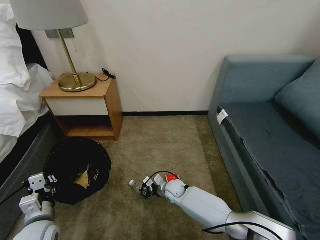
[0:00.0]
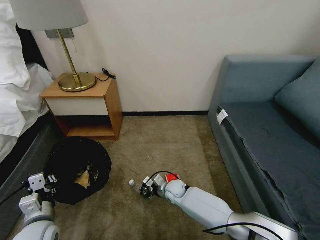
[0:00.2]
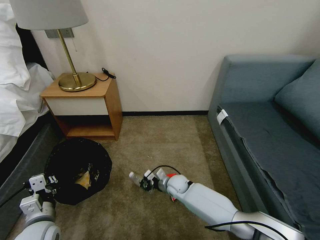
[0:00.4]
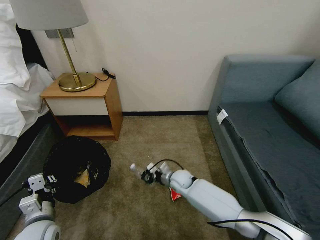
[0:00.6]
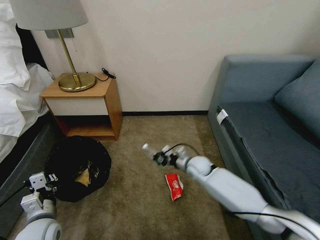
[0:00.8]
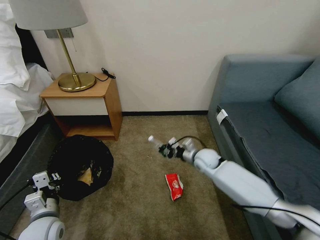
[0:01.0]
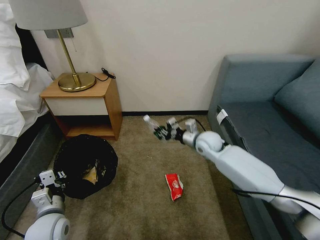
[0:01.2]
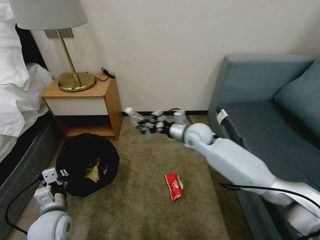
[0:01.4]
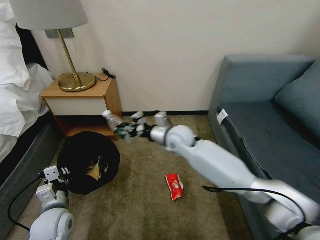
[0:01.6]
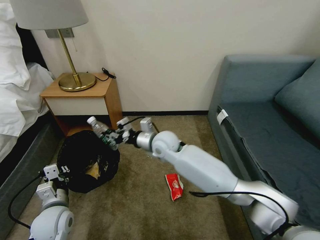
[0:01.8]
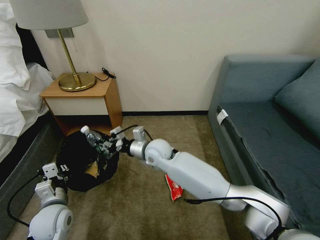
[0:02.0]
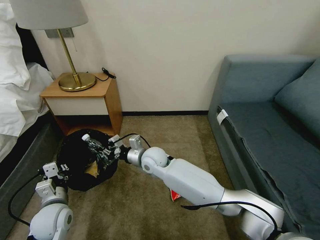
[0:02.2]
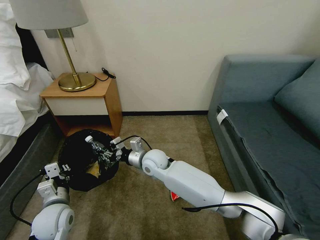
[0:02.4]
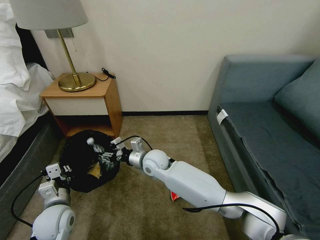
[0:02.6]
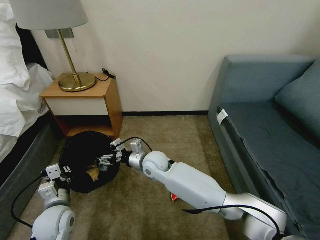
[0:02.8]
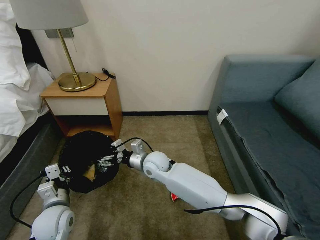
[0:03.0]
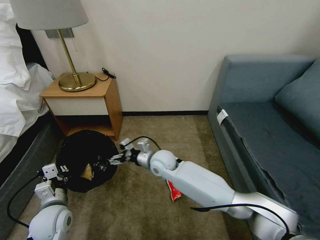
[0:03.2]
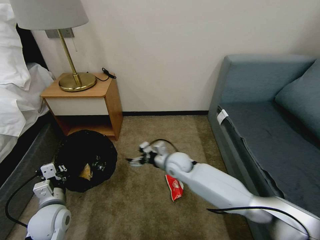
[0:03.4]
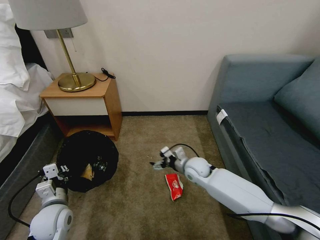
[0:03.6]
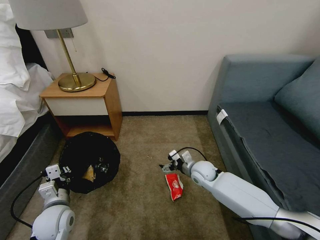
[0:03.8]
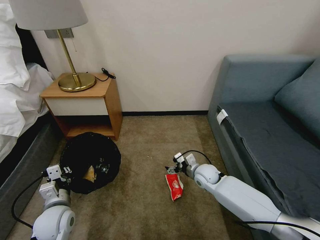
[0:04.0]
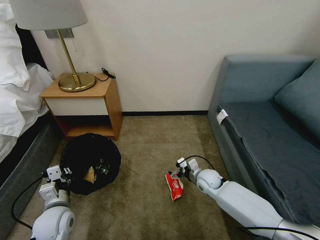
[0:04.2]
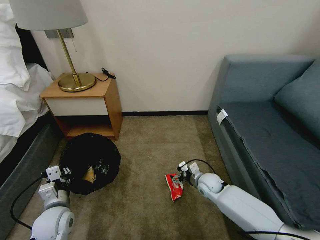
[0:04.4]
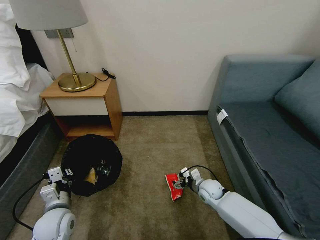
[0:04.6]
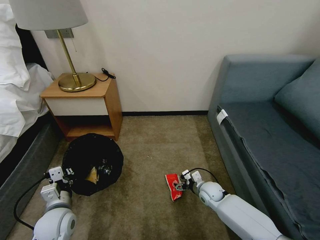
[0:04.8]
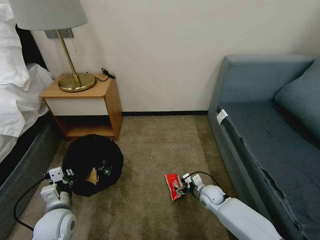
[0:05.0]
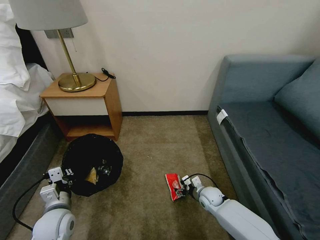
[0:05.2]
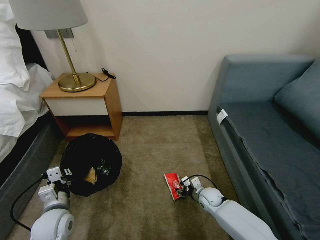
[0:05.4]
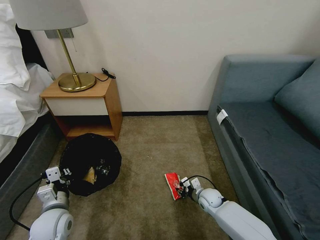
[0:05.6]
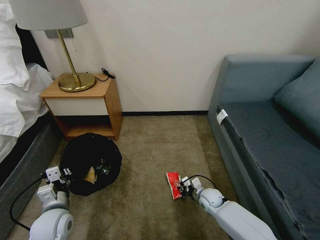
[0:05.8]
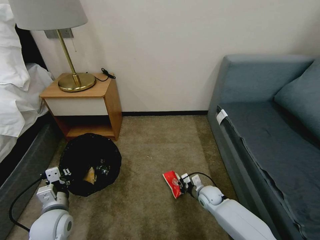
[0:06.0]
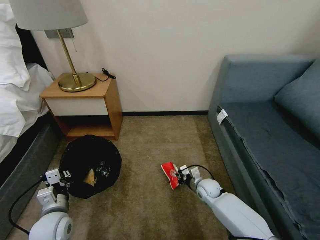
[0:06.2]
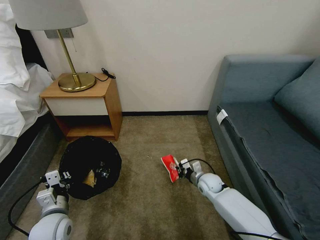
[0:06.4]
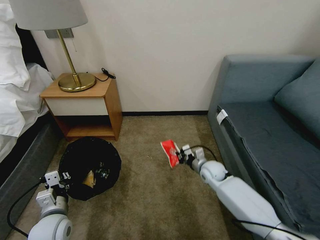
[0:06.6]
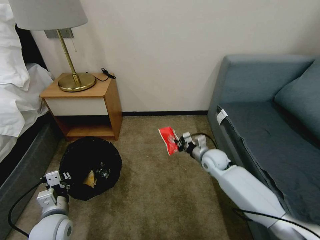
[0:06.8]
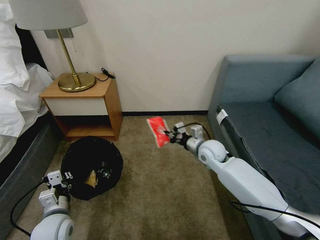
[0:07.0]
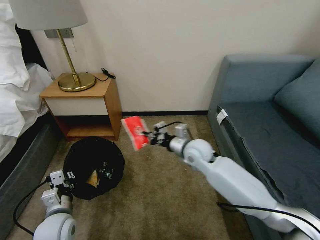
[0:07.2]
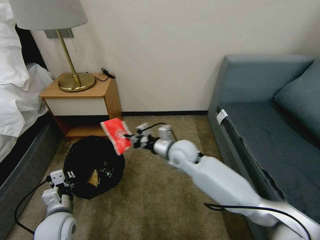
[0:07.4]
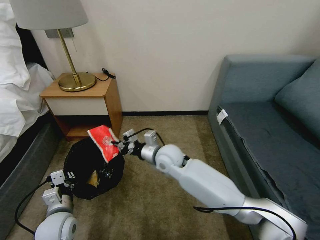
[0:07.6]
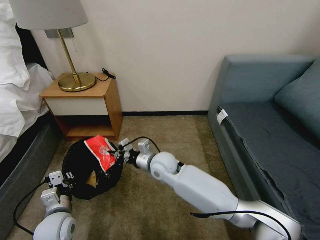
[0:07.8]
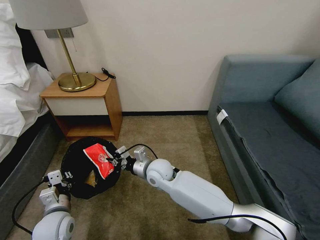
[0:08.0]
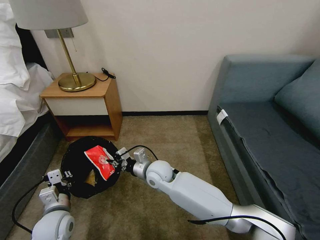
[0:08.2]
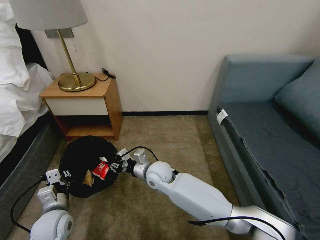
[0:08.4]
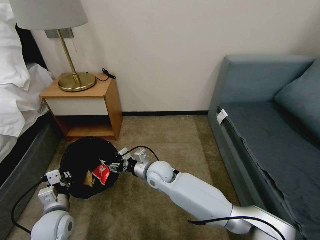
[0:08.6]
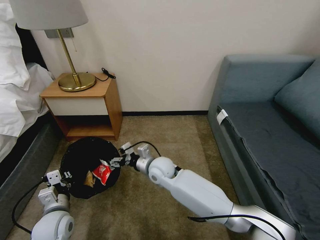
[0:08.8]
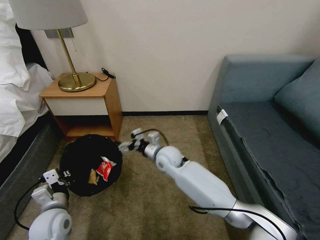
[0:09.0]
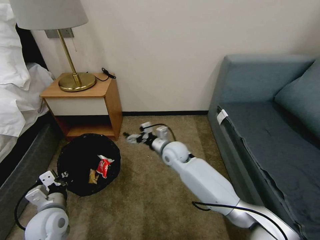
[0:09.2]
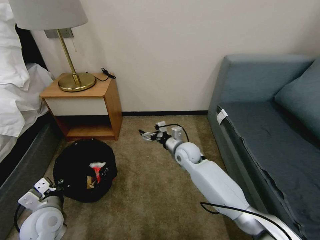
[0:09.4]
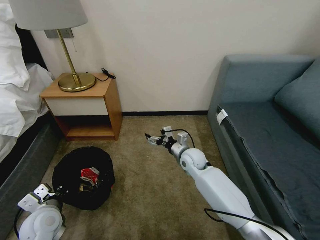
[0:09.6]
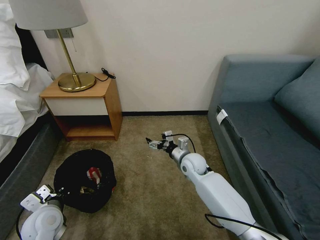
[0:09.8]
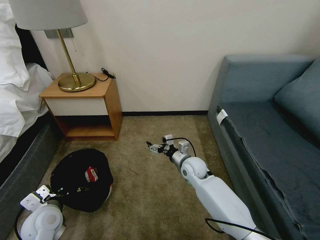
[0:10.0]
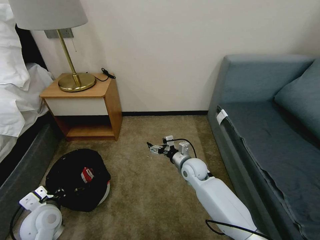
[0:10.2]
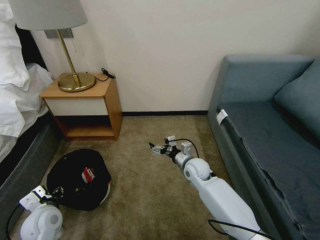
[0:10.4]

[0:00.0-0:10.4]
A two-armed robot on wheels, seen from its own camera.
Task of the whole recording: Pick up the trash bin, then pick up the garbage on the floor and place it into the trash bin.
0:00.0 to 0:01.4: The right gripper heads upward, covering roughly 25 cm.
0:01.4 to 0:03.0: The right gripper shifts approximately 20 cm to the left, downward and backward, and opens its fingers.
0:03.0 to 0:04.4: The right gripper heads to the right and downward, covering about 25 cm.
0:04.4 to 0:06.0: The right gripper travels downward by roughly 5 cm, and closes its fingers.
0:06.0 to 0:07.4: The right gripper travels upward and to the left by approximately 30 cm.
0:07.4 to 0:09.0: The right gripper shifts about 10 cm downward and to the left, and opens.
0:09.0 to 0:10.4: The left gripper opens; the right gripper is displaced to the right by about 10 cm.

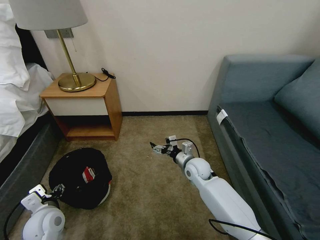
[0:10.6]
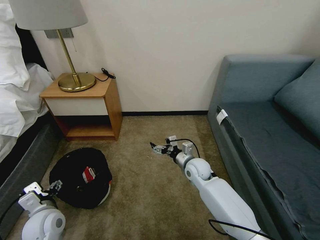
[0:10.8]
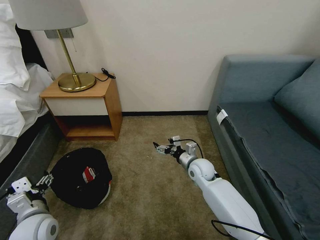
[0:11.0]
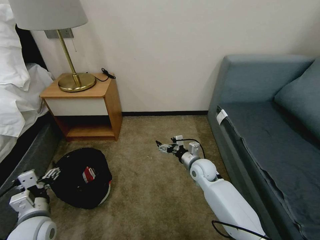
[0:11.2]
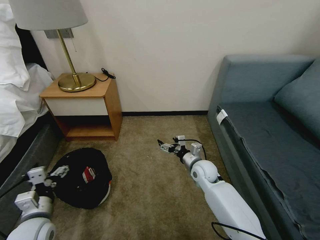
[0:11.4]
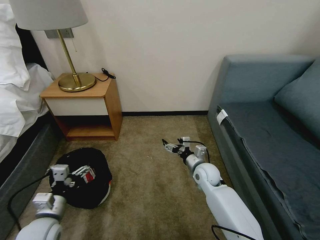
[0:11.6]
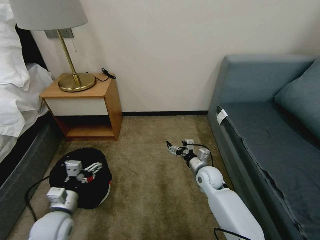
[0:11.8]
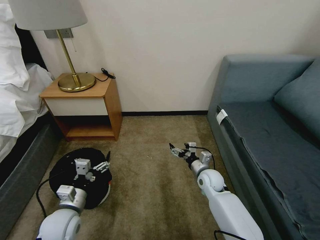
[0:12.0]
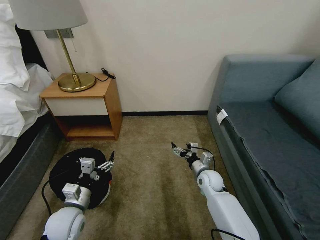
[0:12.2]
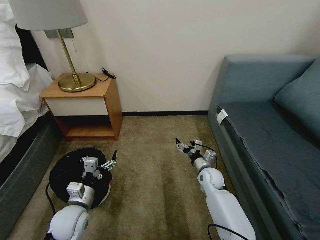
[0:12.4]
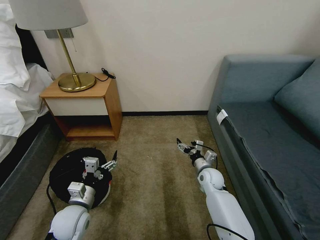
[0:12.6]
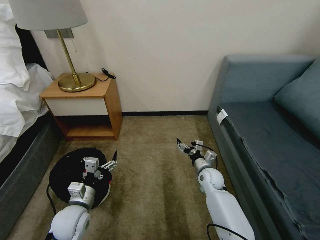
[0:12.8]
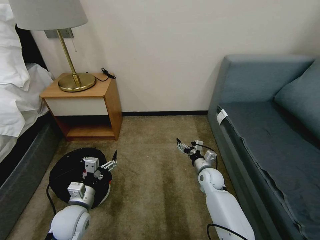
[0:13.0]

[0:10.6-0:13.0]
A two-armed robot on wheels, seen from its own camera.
Task of the whole recording: Pick up the trash bin, then pick up the garbage on the floor and place it into the trash bin.
0:10.6 to 0:11.8: The right gripper changes place by about 5 cm.
0:11.8 to 0:13.0: There are only small adjustments of the grippers.

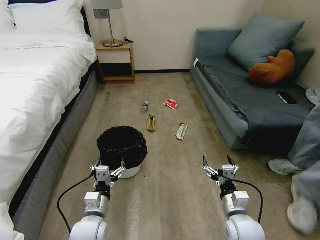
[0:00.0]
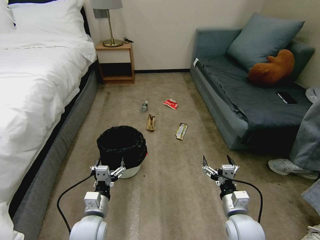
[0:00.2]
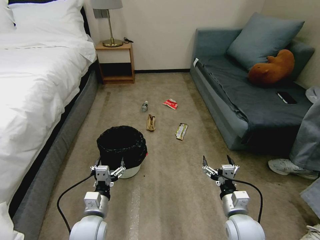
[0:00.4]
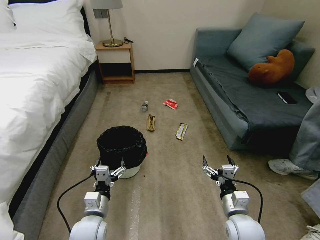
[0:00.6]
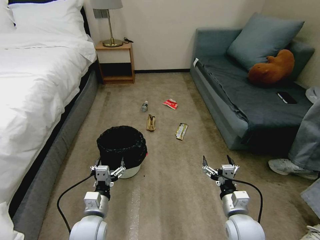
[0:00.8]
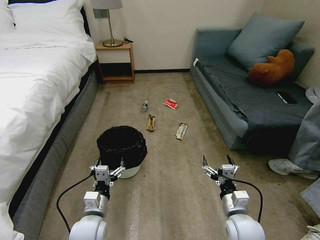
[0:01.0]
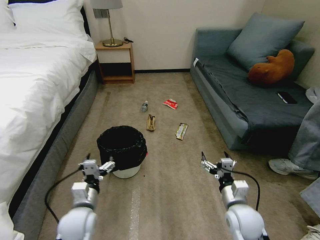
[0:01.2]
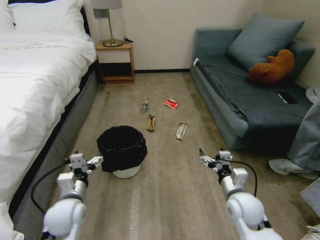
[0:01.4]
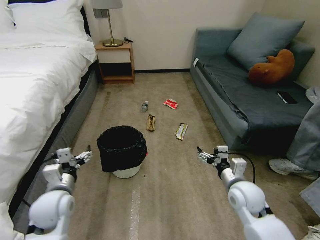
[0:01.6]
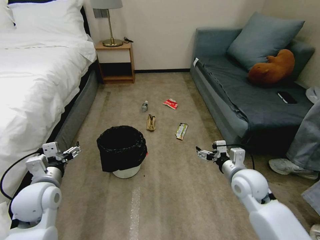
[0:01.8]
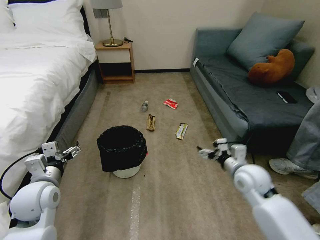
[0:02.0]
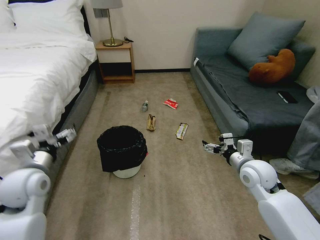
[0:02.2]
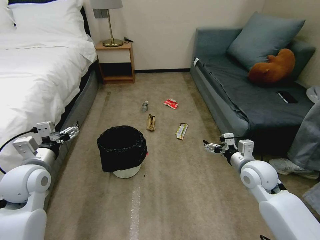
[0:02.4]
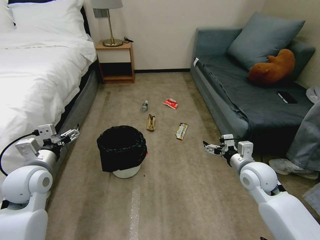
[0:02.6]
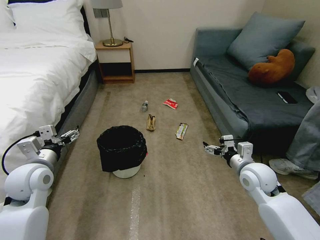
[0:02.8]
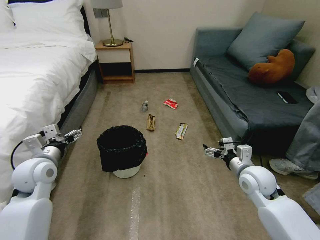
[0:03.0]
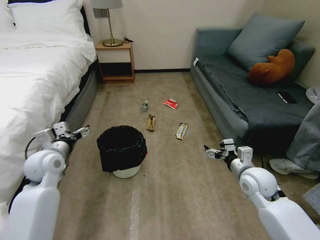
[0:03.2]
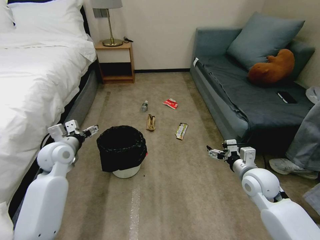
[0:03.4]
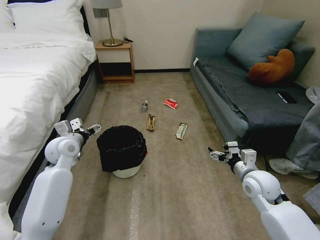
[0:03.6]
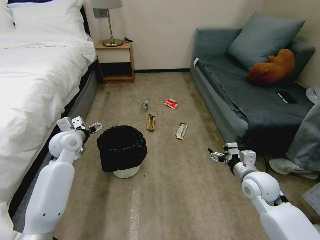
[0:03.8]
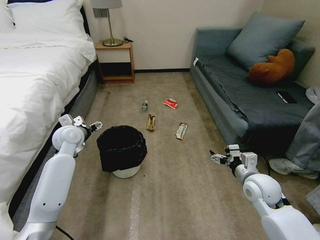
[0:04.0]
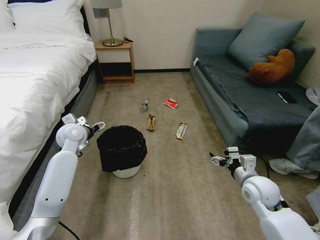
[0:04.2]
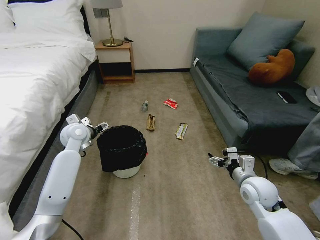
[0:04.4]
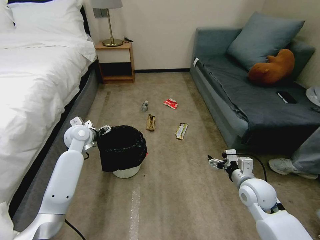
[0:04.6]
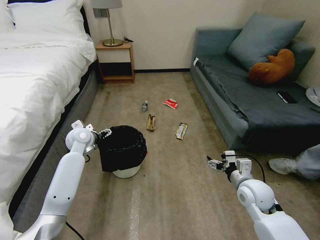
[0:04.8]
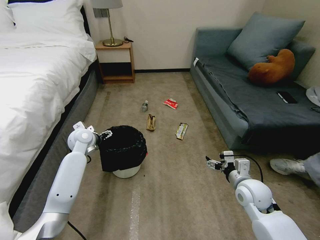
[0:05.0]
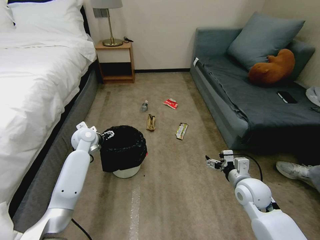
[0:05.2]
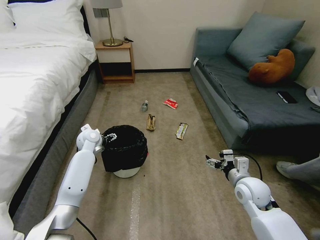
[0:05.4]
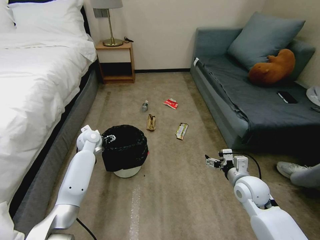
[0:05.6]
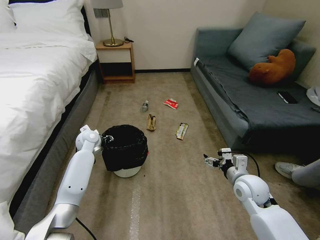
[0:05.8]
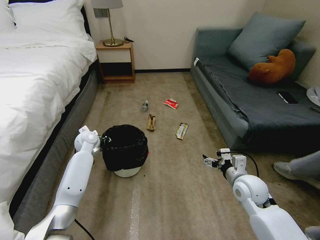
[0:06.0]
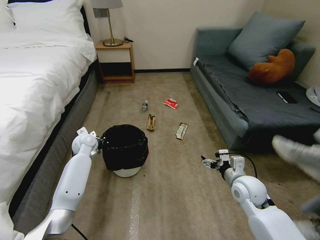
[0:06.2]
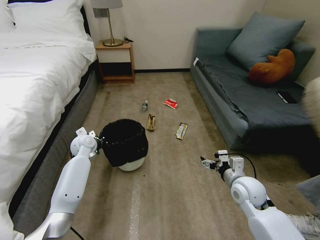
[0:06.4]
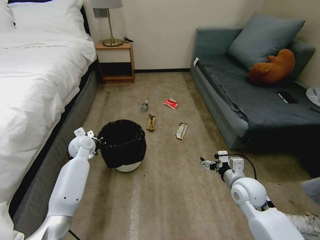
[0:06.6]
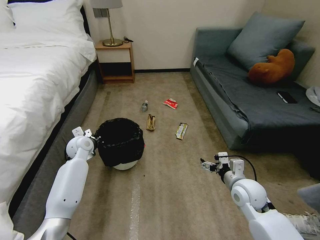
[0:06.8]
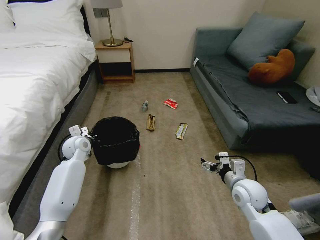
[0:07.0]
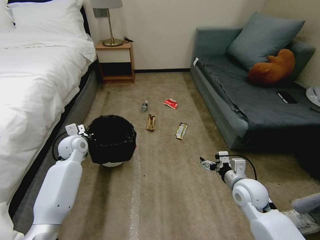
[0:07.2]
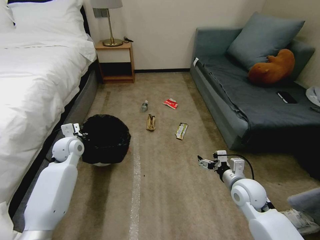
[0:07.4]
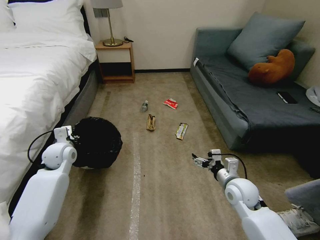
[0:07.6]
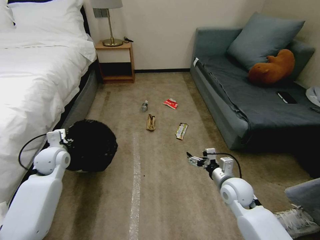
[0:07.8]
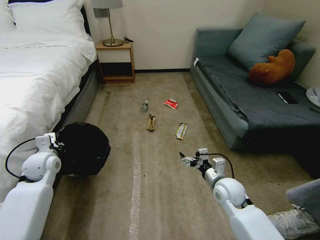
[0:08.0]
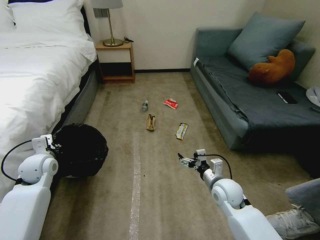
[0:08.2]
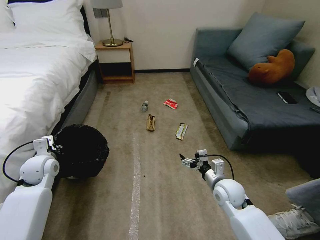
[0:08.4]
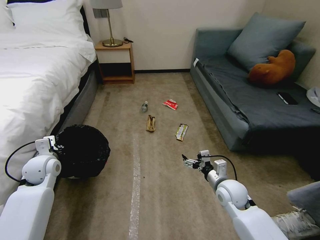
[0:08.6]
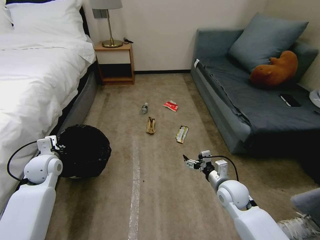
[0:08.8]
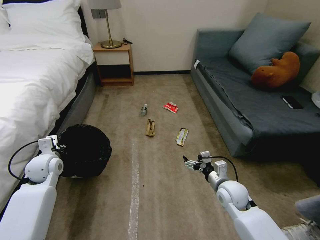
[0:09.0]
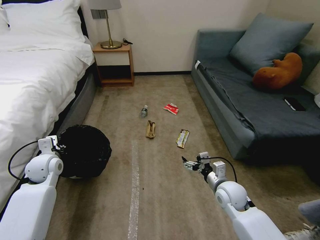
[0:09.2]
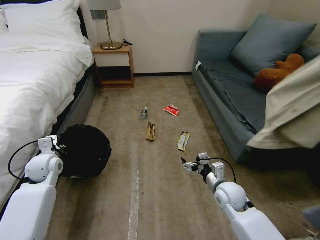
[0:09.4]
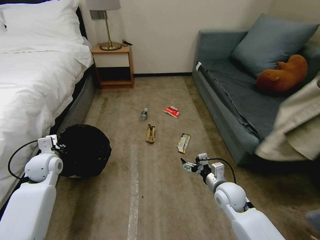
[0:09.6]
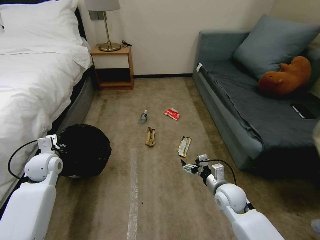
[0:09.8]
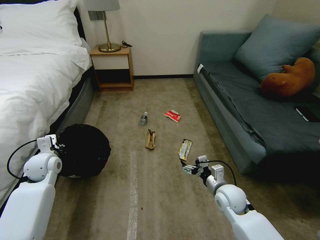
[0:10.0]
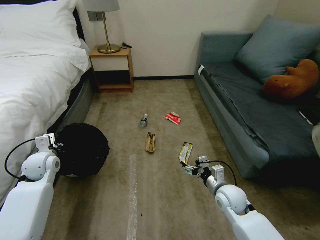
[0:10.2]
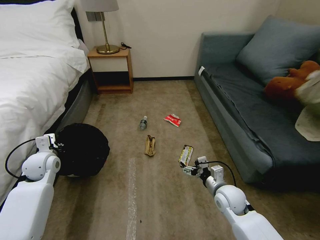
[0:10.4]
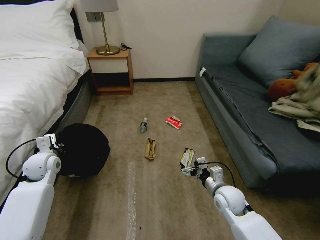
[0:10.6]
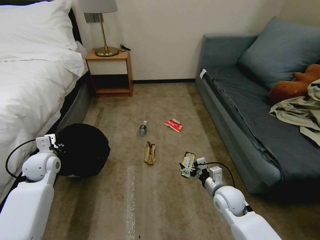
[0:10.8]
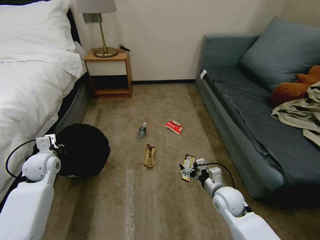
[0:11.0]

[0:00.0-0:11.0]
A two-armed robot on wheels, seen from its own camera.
Task of the whole recording: Pick up the trash bin, then pick up the garbage on the floor and place it into the trash bin.
0:01.6 to 0:03.2: The right gripper ends up about 5 cm from where it was; the left gripper shifts about 10 cm forward and upward.
0:03.2 to 0:04.8: The left gripper shifts approximately 15 cm forward.
0:04.8 to 0:06.2: The left gripper is displaced downward by approximately 5 cm, and closes its fingers.
0:06.2 to 0:07.8: The left gripper travels backward and to the left by about 10 cm.
